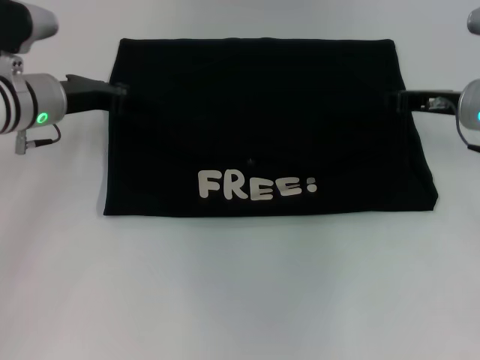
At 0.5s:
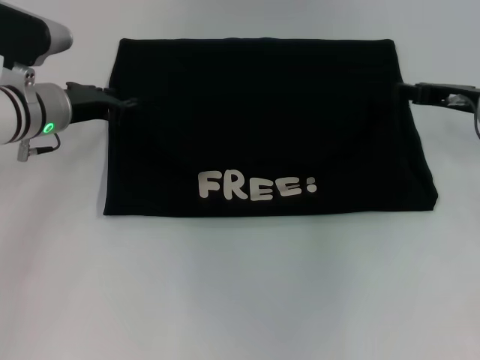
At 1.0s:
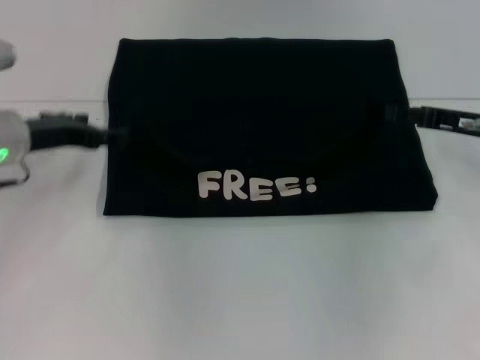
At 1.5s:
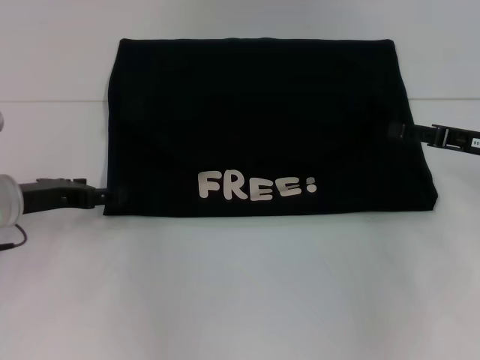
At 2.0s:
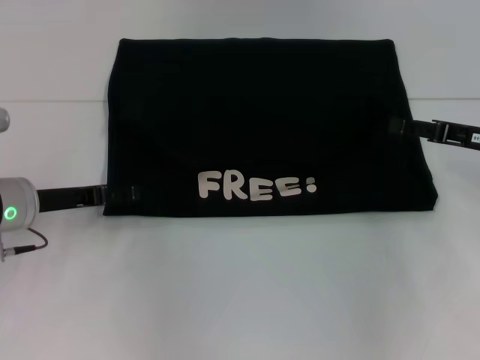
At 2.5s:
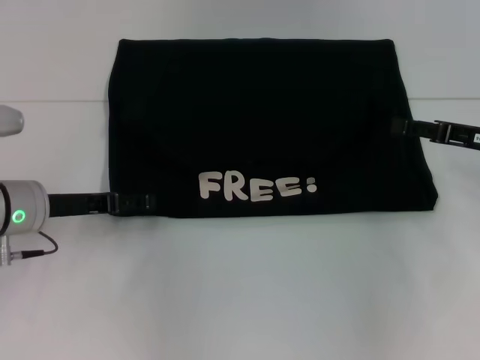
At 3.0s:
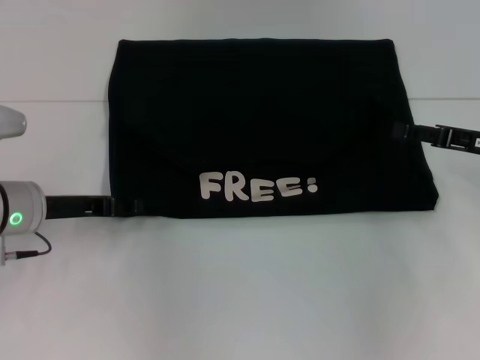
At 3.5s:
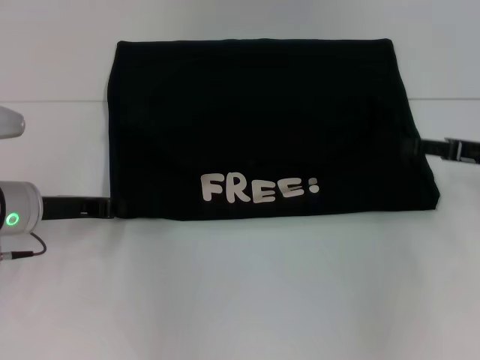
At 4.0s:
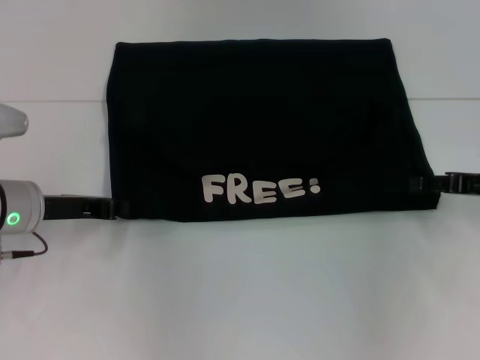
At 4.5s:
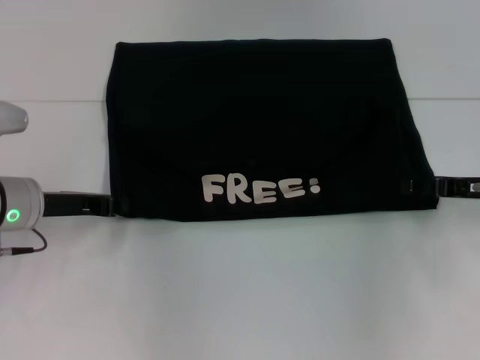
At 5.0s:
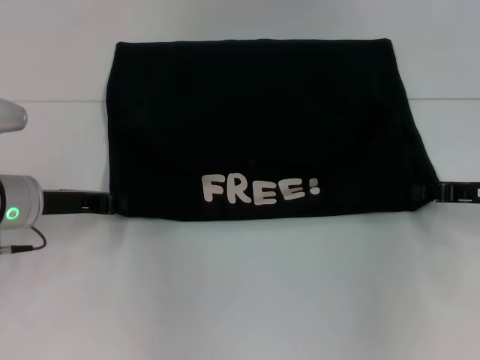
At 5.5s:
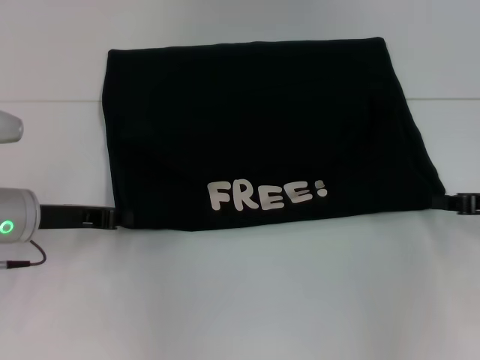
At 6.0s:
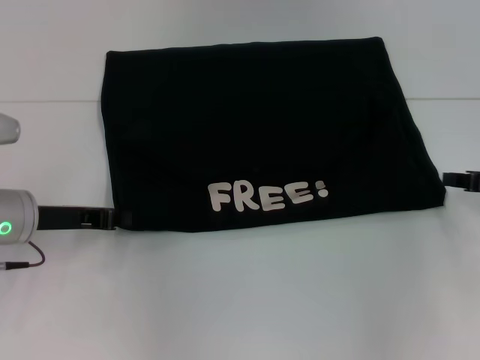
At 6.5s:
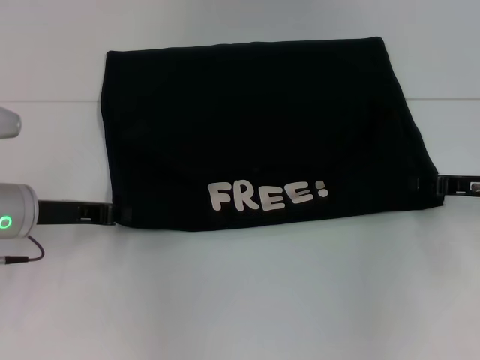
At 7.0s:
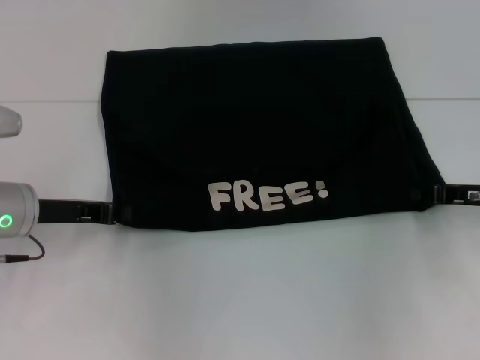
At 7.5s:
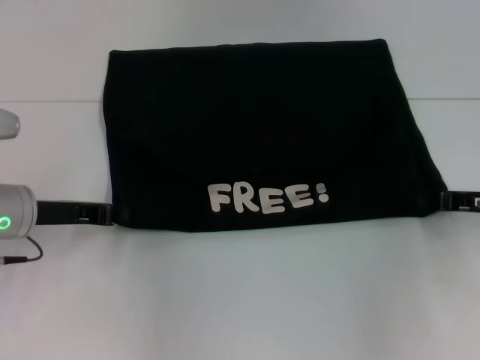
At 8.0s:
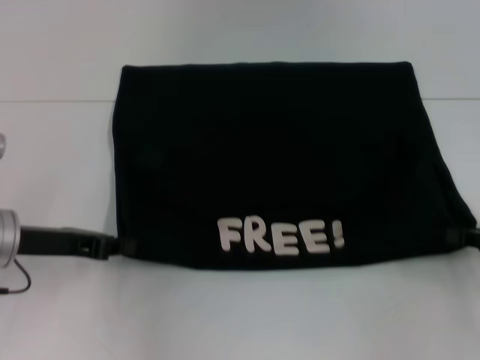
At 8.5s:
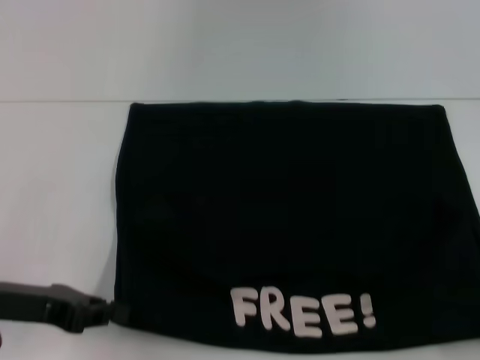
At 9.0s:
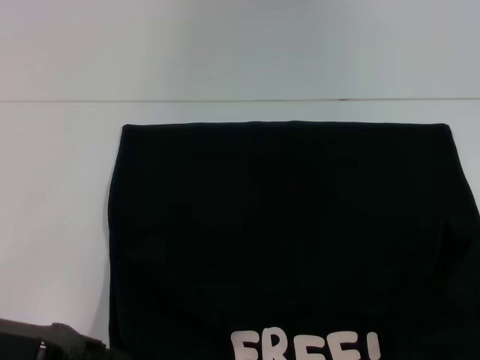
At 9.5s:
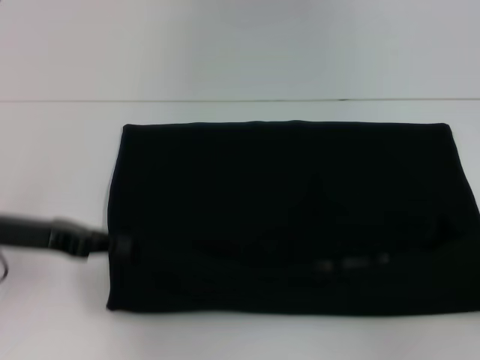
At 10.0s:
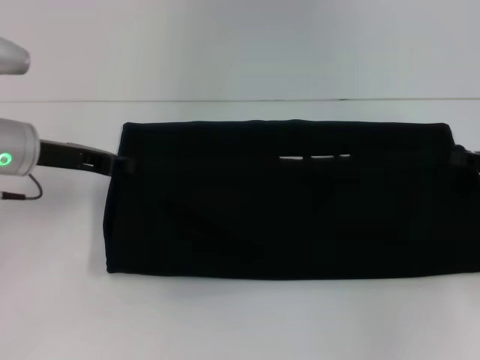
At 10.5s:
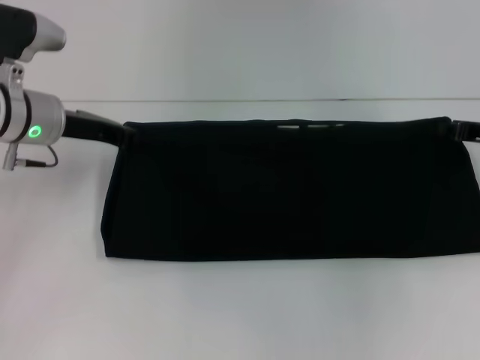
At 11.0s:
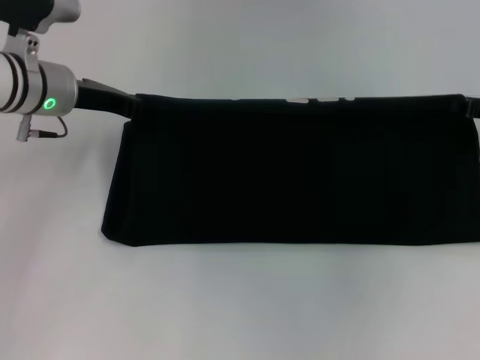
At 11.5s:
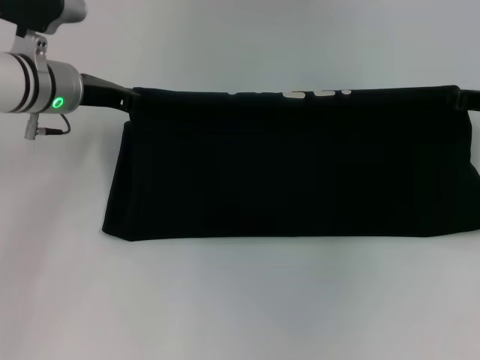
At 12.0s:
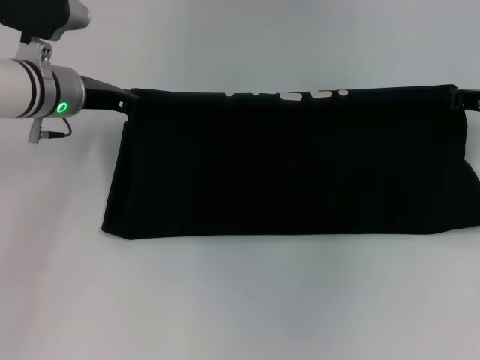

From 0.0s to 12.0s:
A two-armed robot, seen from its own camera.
Step, from 0.5s to 8.5s: Pull the clothes with your left hand.
Step, from 0.5s to 8.5s: Pull the clothes with your right hand.
From 0.0s to 2.0s: The right gripper goes roughly 5 cm backward, and opens. Meanwhile the left gripper moves backward and downward, roughly 10 cm, and opens its fingers.
From 2.0s to 4.0s: The left gripper closes up.
From 4.0s to 6.0s: The right gripper closes its fingers.
From 6.0s to 8.0s: The right gripper moves backward, roughly 5 cm.
From 8.0s to 10.0s: The grippers both shift forward by approximately 5 cm.
From 10.0s to 12.0s: The two grippers go roughly 5 cm forward.

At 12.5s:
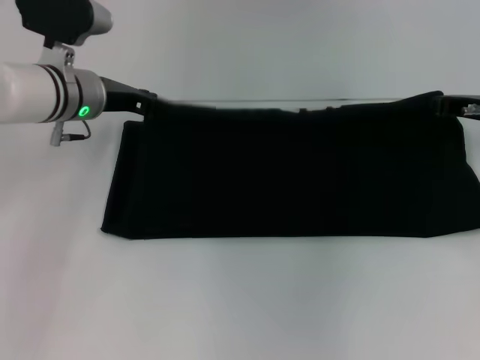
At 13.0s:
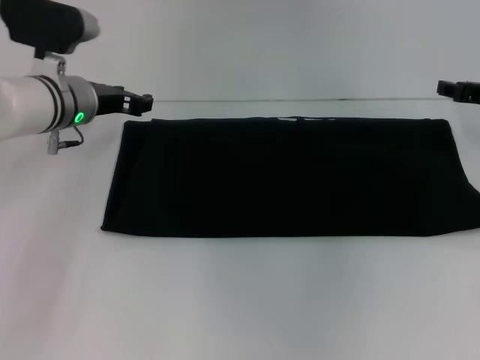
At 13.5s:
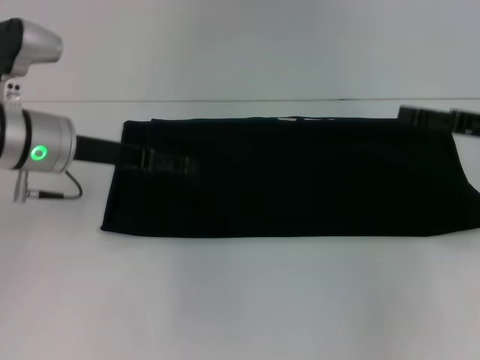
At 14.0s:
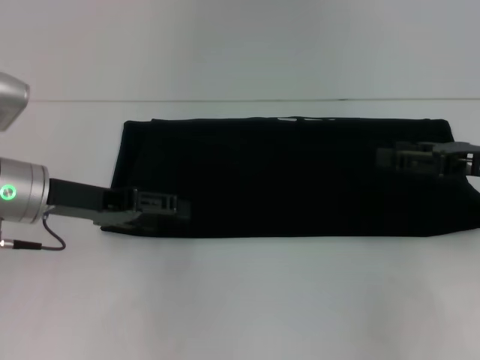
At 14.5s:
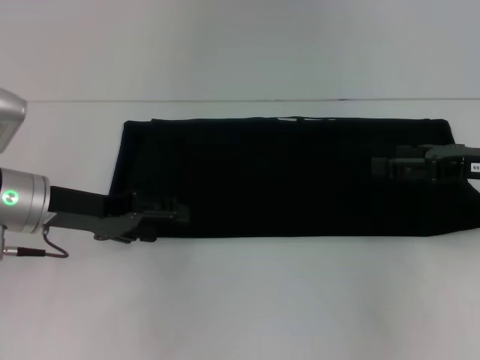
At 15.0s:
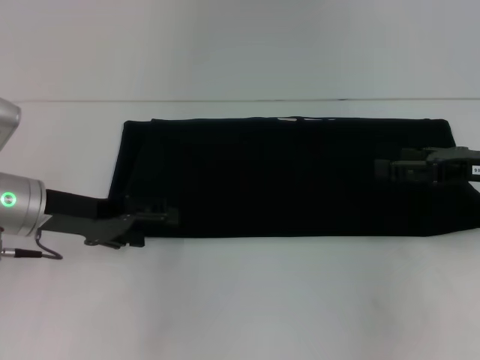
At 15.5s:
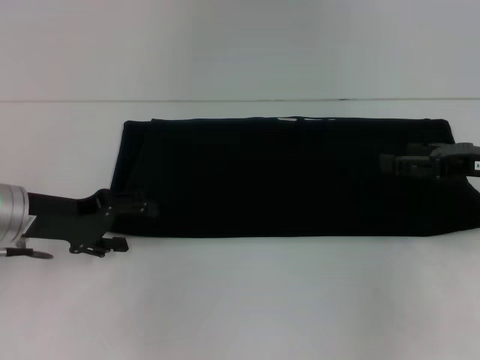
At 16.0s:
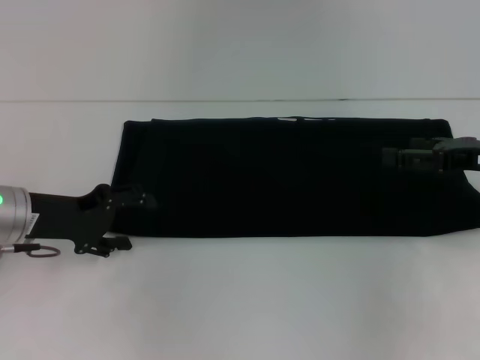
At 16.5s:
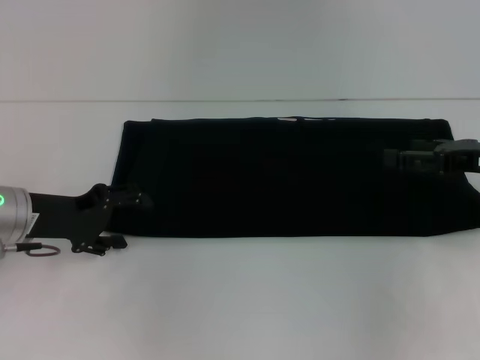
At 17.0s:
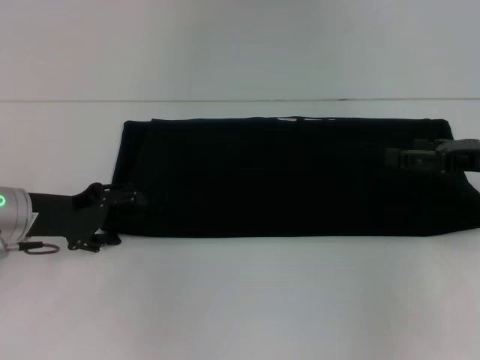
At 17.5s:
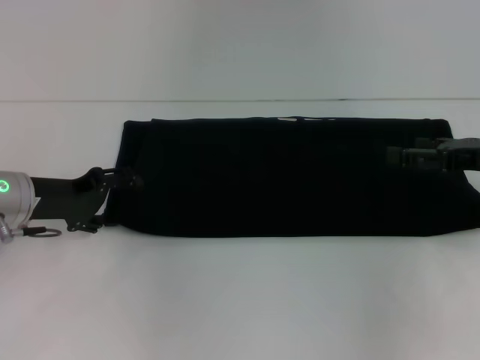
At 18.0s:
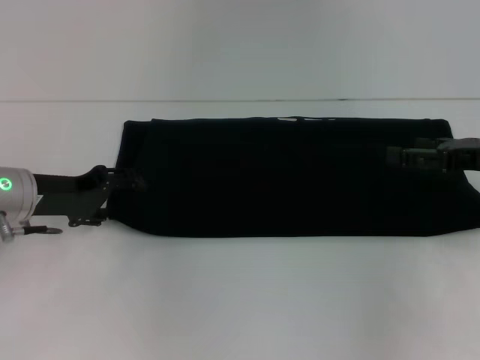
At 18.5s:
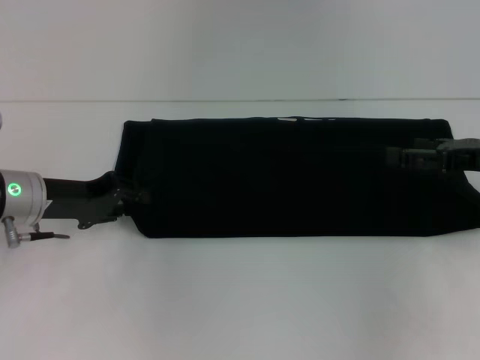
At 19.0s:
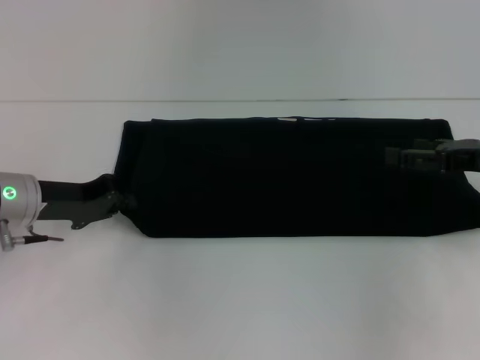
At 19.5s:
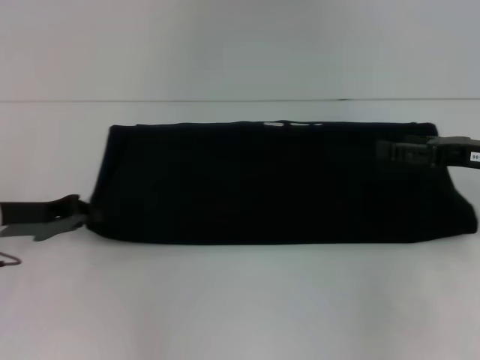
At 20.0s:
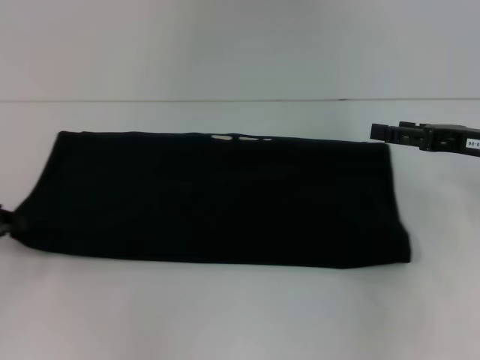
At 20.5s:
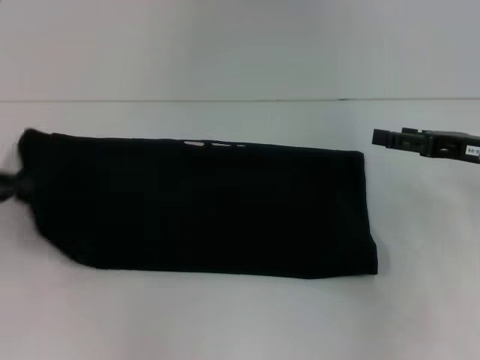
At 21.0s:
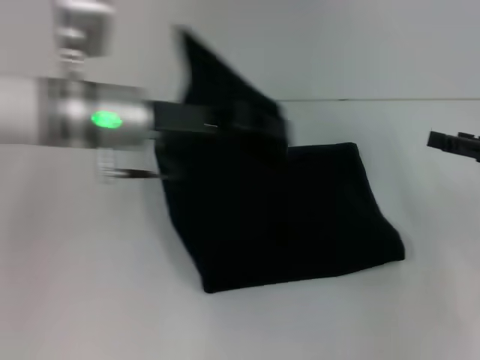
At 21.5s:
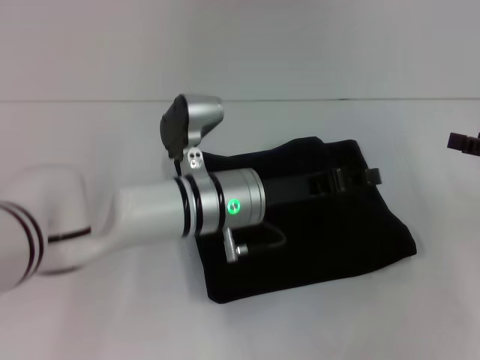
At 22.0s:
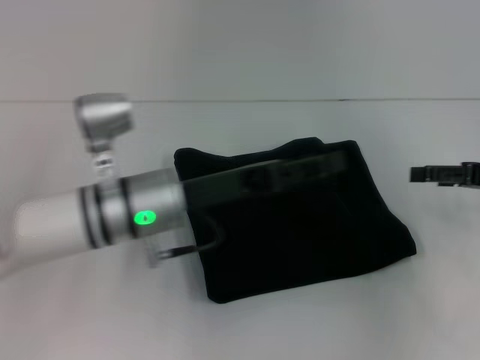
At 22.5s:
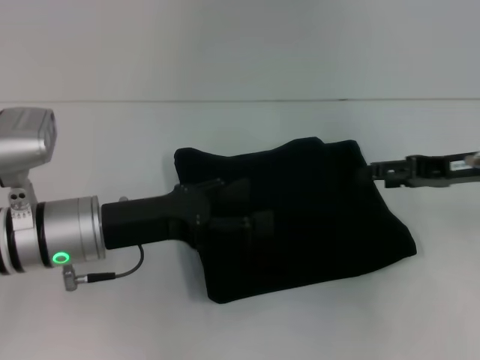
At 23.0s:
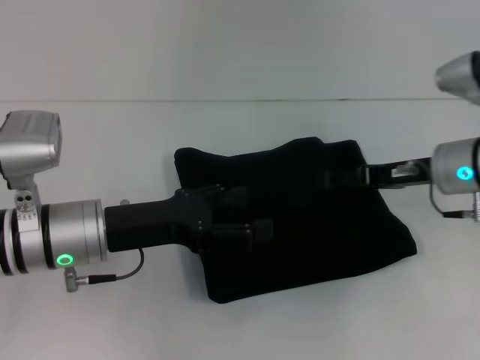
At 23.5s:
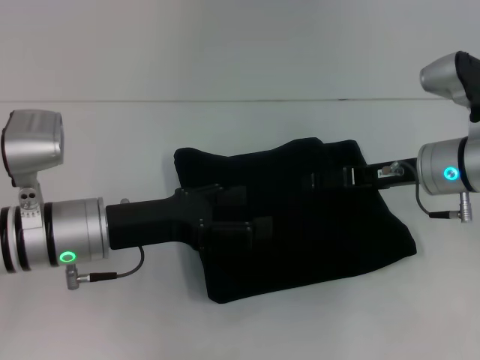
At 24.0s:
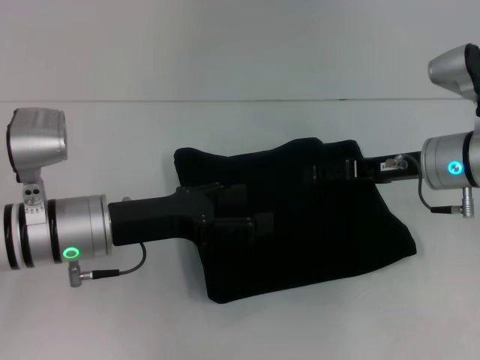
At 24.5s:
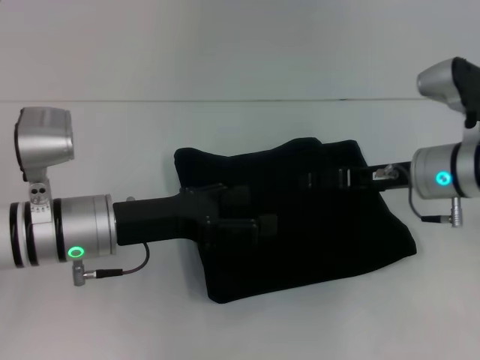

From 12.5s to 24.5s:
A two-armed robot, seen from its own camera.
Step, from 12.5s to 21.5s: Fold the clothes with your left hand.
From 12.5s to 14.5s: The left gripper heads backward and to the left, covering some 10 cm, and opens up. Meanwhile the right gripper is displaced backward by some 10 cm, and opens up.
From 16.5s to 18.5s: The grippers make only small movements.
From 18.5s to 20.5s: The left gripper is displaced to the left and backward by approximately 10 cm, and closes.
From 20.5s to 22.5s: The right gripper reaches roughly 5 cm to the right, then returns. Meanwhile the left gripper heads to the right, covering approximately 20 cm, and opens up.
From 22.5s to 24.5s: The right gripper moves to the left, about 5 cm.

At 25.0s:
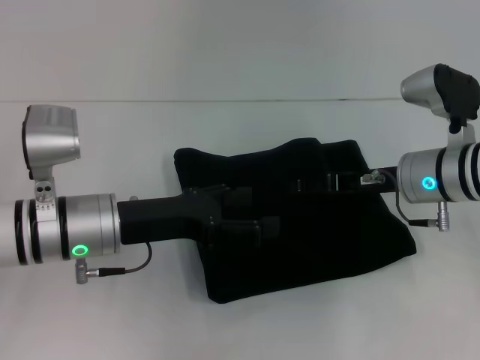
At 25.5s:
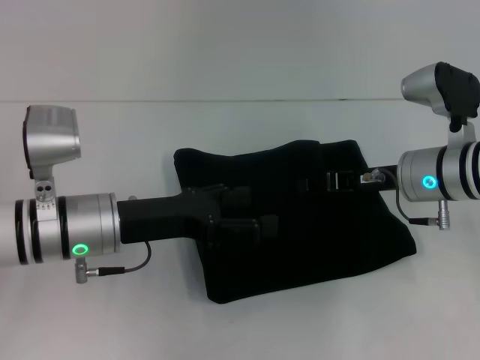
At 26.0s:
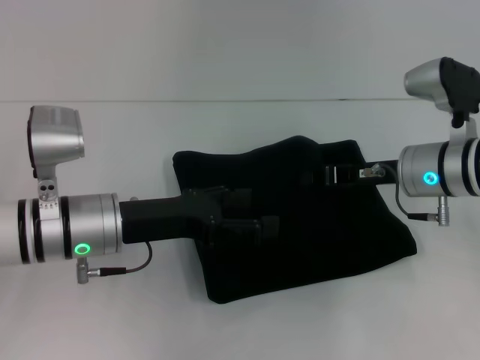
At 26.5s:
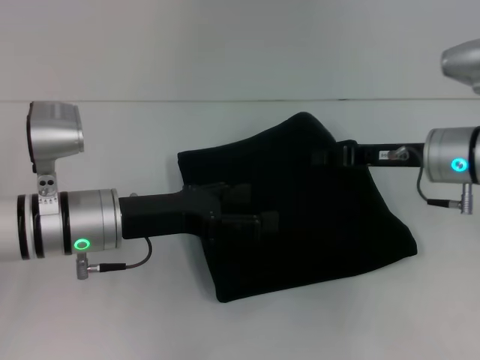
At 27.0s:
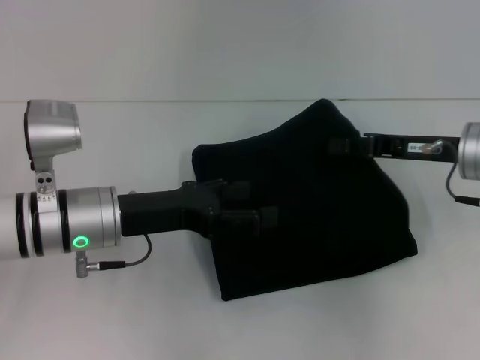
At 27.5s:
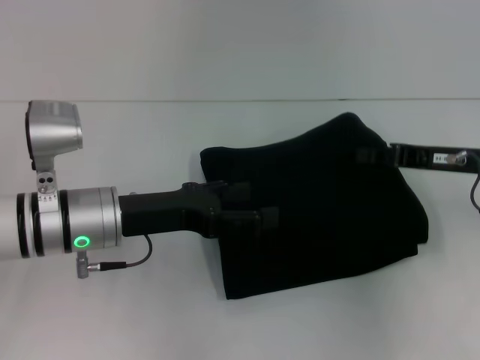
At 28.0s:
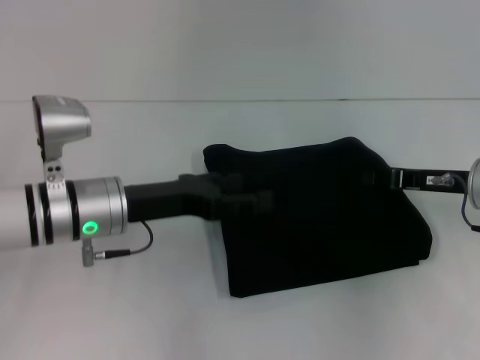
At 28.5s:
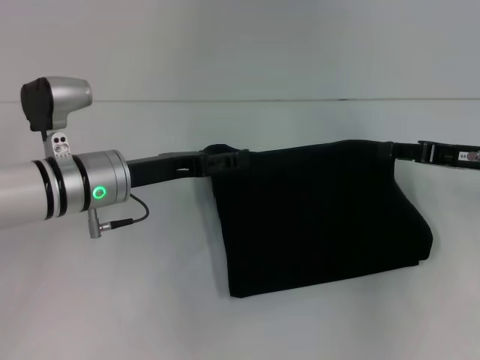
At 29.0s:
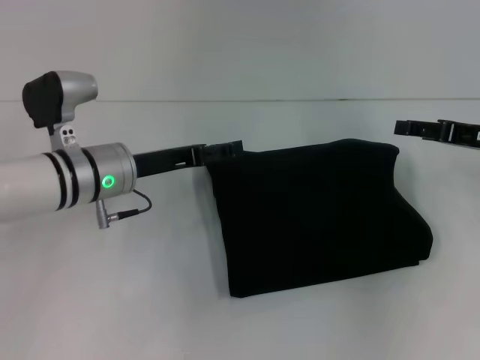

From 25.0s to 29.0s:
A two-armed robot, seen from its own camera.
From 25.0s to 27.0s: The right gripper moves roughly 5 cm, and closes.
From 27.0s to 29.0s: The left gripper travels forward by about 5 cm. Meanwhile the right gripper shifts some 5 cm to the right, and opens its fingers.
